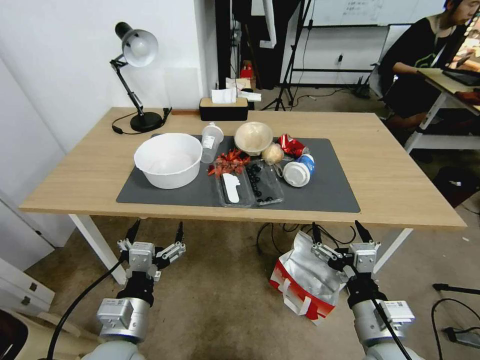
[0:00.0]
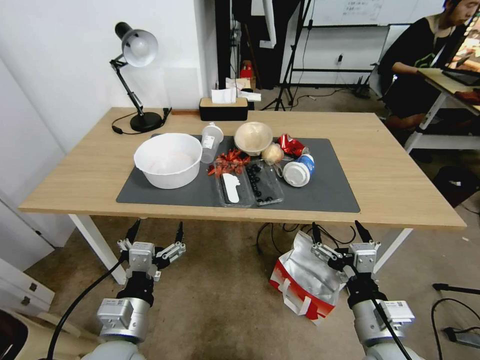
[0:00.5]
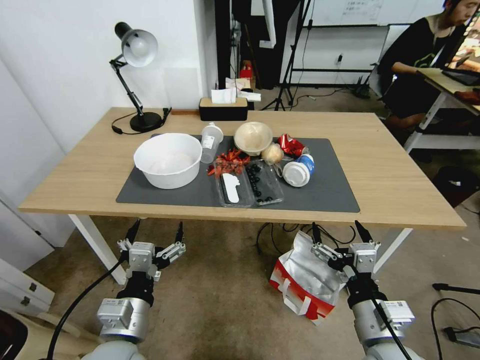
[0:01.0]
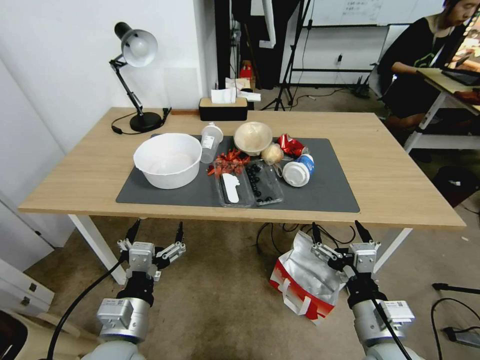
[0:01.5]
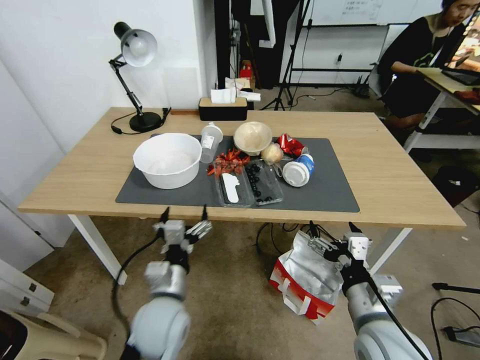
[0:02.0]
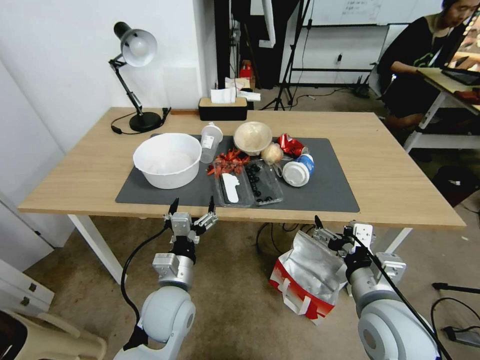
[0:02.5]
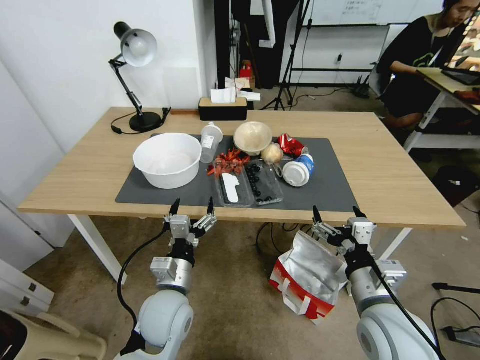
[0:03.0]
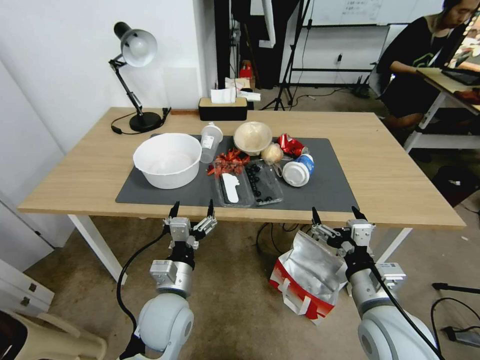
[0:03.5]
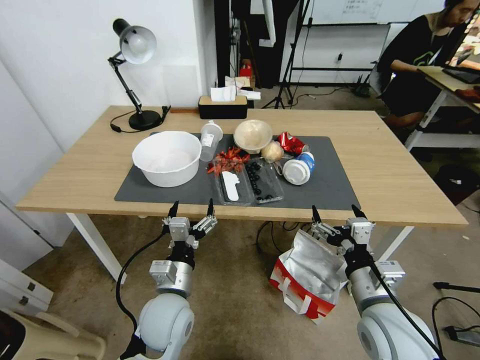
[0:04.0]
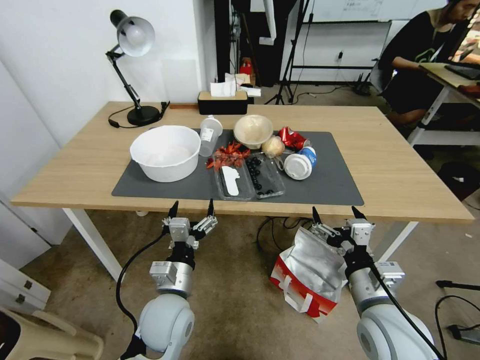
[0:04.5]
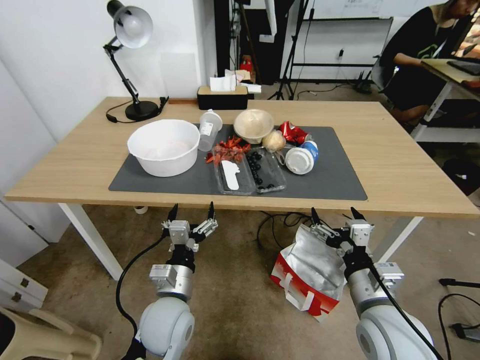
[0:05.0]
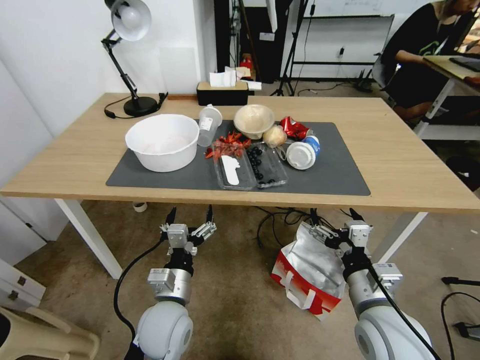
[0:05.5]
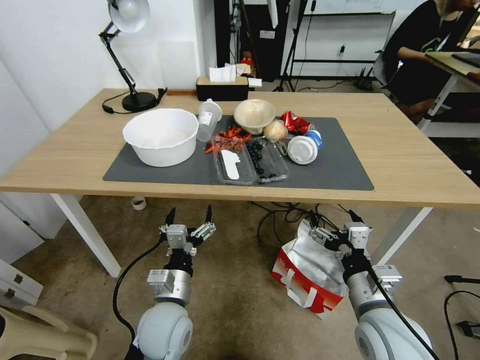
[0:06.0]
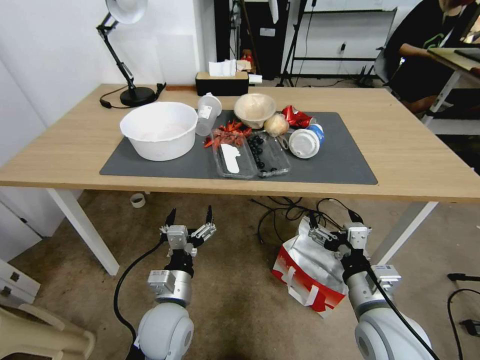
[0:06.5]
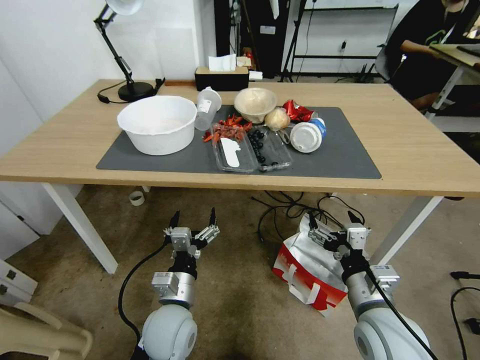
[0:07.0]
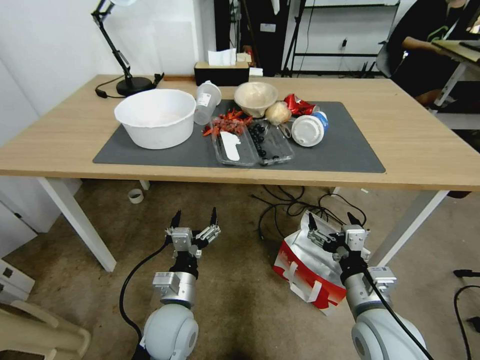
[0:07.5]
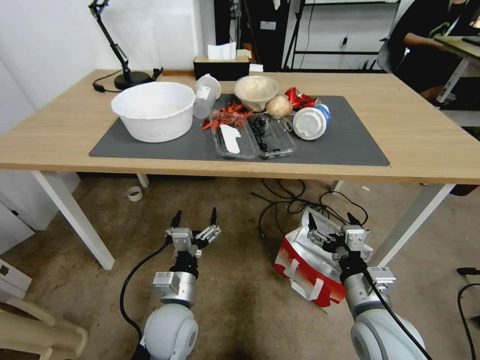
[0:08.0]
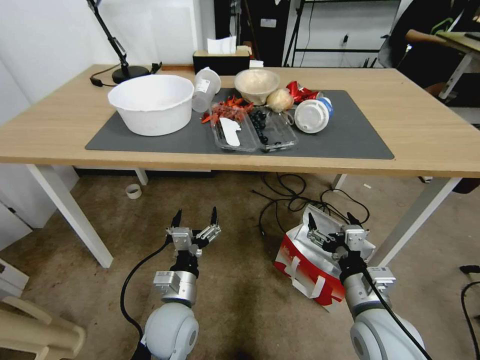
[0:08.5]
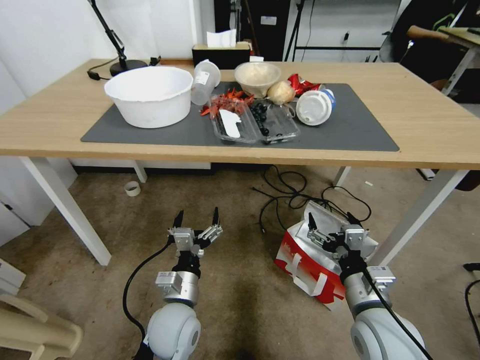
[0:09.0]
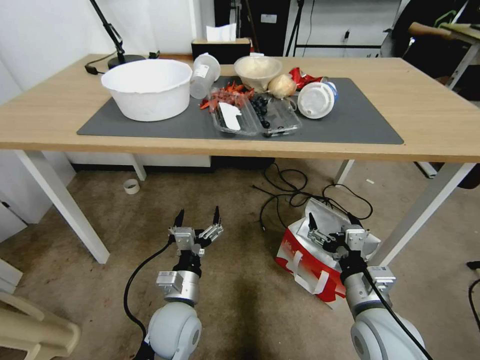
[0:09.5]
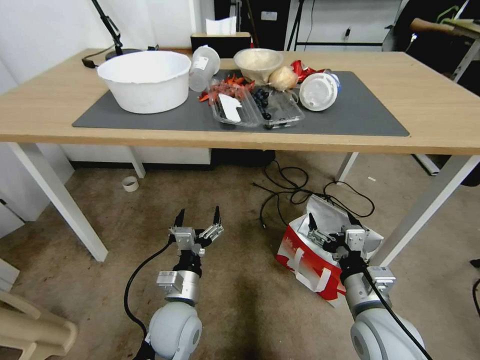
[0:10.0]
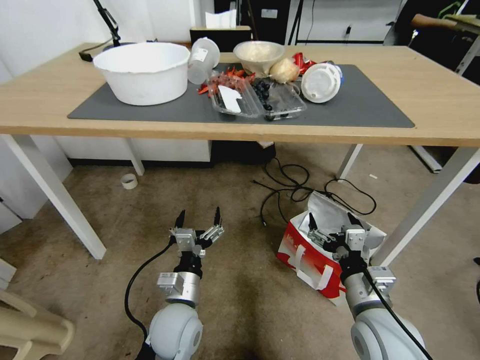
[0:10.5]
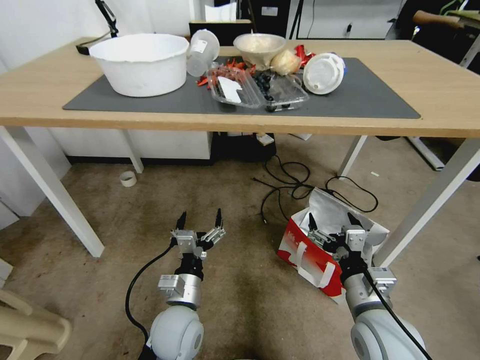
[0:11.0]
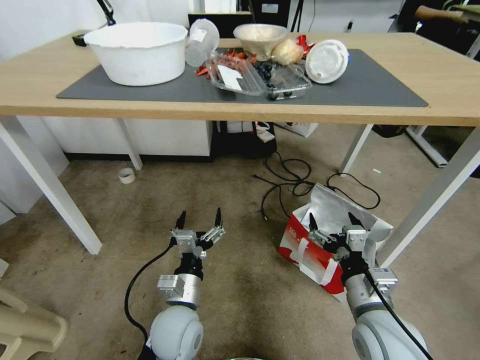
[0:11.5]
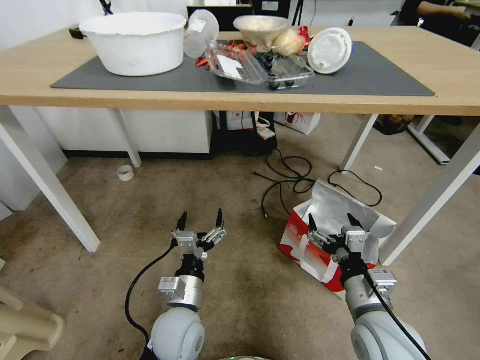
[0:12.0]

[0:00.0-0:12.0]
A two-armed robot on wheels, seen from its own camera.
Task of the whole recording: Pick up the food delivery bag from the floor and place it on the table.
2.0 to 4.0 s: The grippers make only small movements.

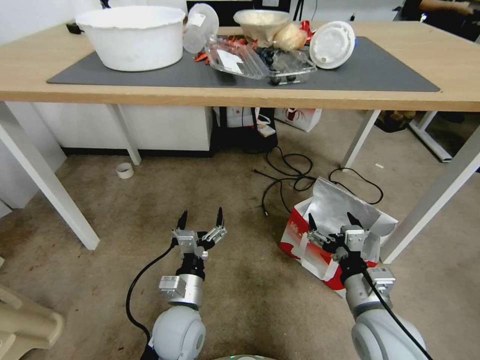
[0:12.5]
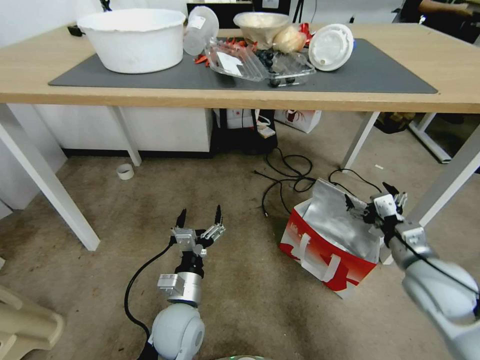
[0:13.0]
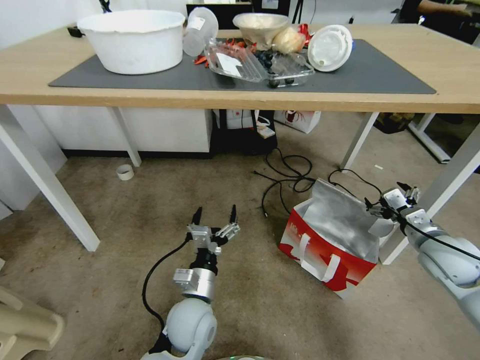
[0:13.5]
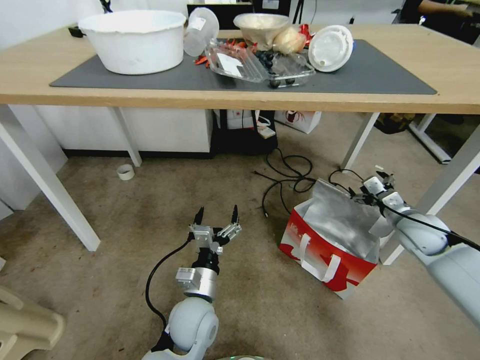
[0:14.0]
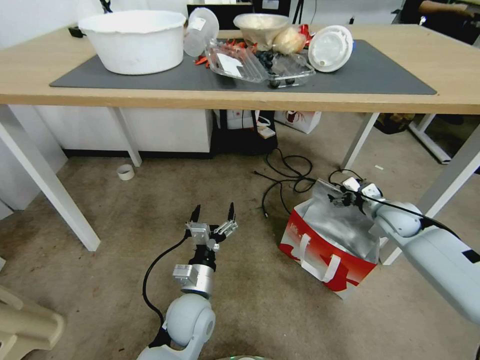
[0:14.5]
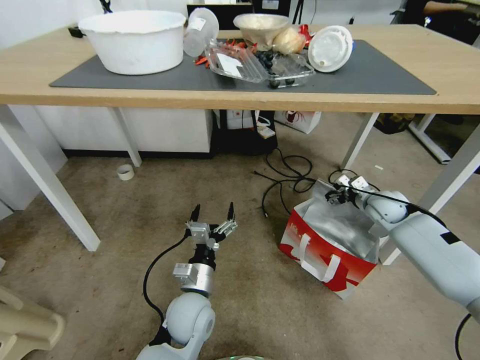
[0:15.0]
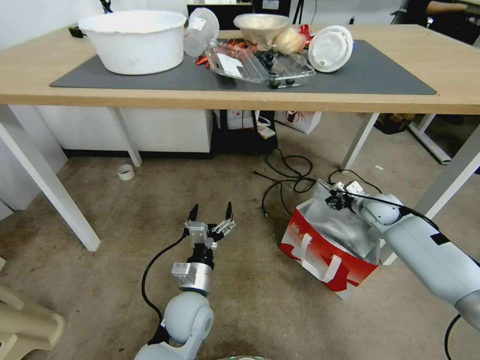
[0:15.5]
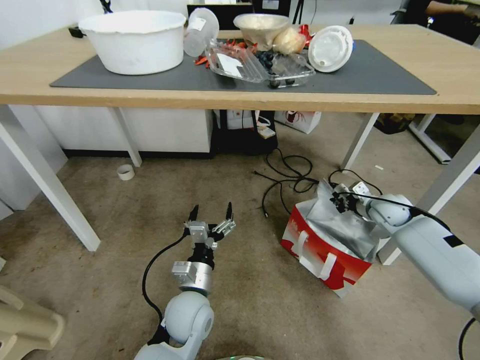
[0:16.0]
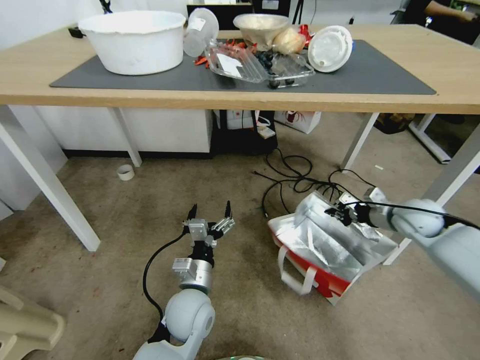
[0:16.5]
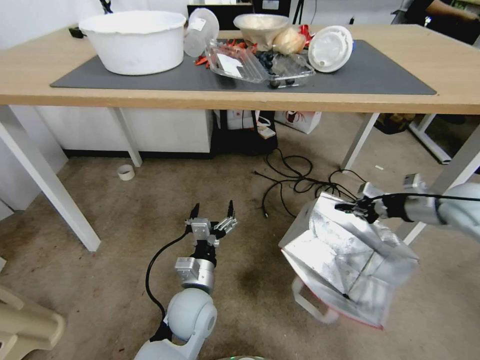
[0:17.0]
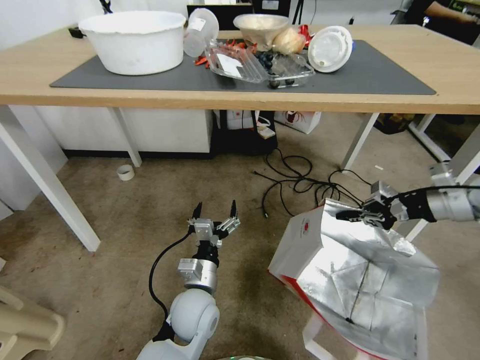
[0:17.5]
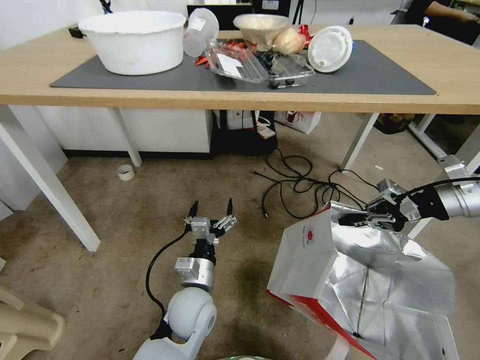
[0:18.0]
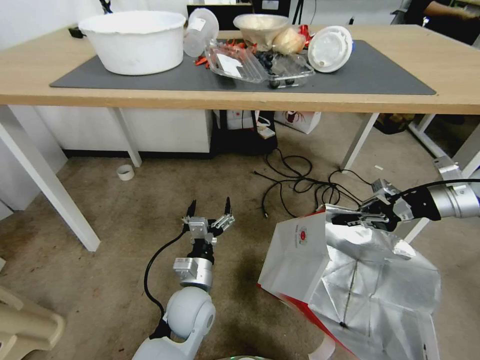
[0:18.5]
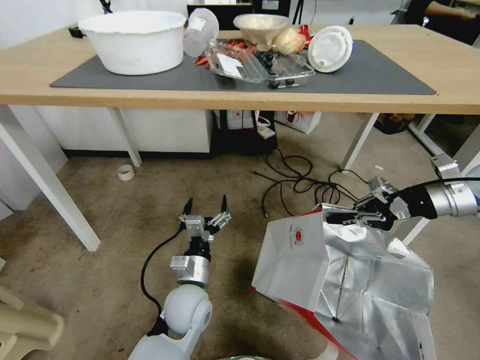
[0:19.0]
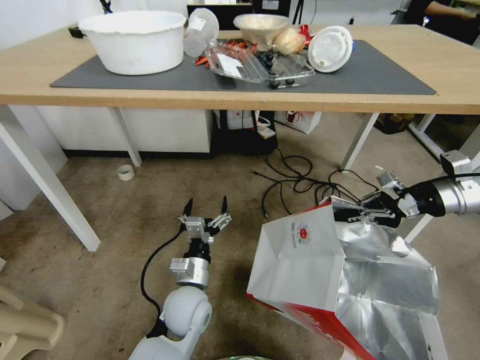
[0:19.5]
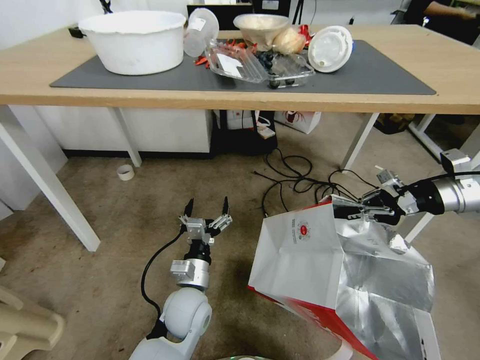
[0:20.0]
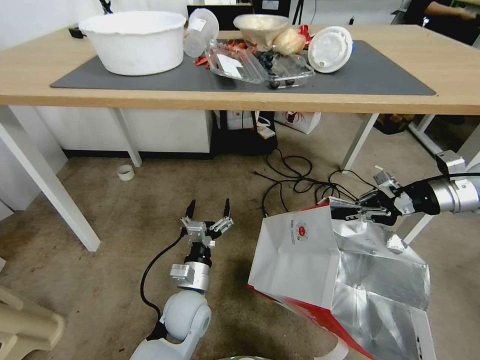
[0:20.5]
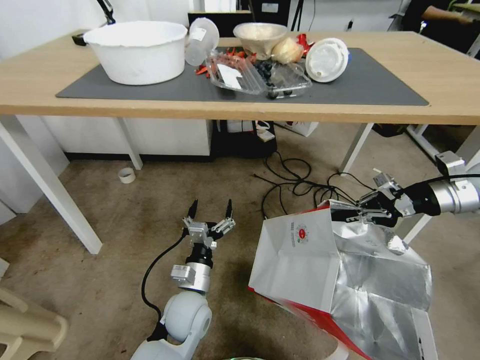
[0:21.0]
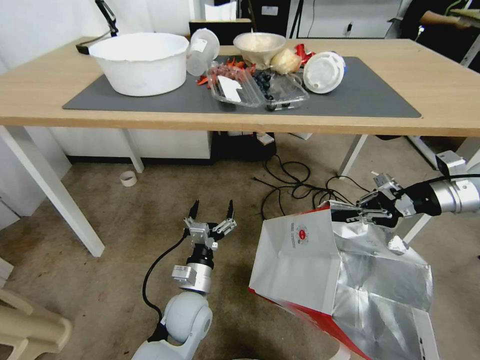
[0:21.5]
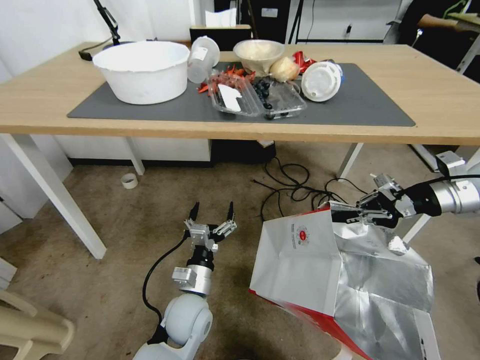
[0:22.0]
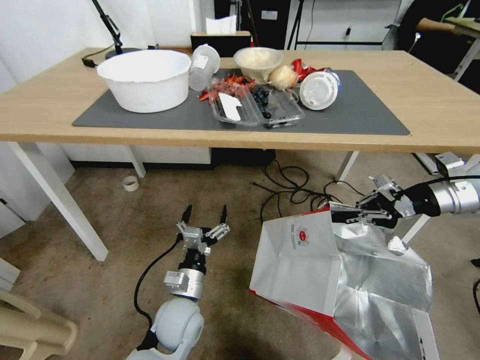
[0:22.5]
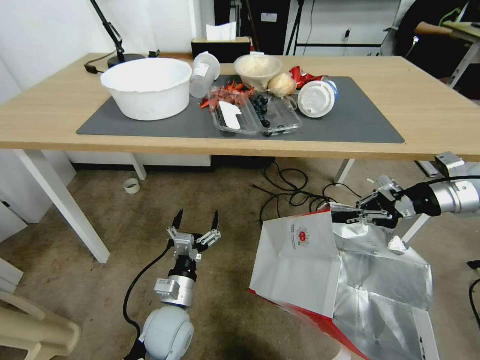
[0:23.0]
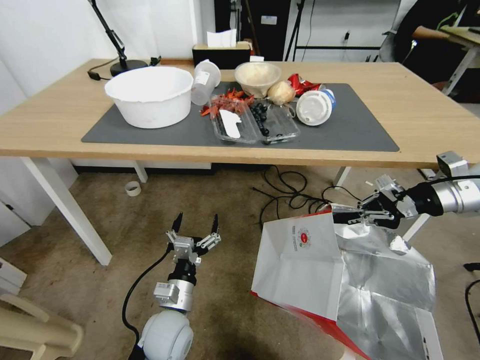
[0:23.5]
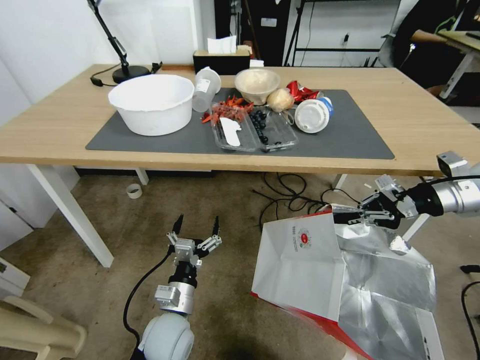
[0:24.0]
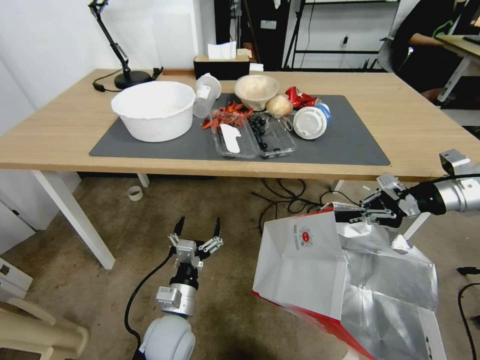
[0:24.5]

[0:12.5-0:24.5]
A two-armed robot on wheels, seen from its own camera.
Task of the whole recording: Pick up the food delivery bag from the floor and place it on the table.
12.5 to 14.5 s: The right gripper shifts some 30 cm forward and to the right.
14.5 to 16.5 s: The right gripper closes up.
16.5 to 18.5 s: The right gripper travels upward by some 15 cm.
18.5 to 20.5 s: The grippers move only a little.

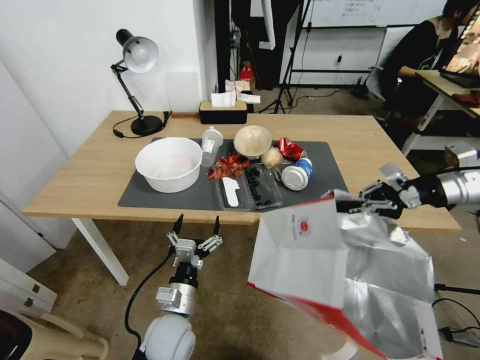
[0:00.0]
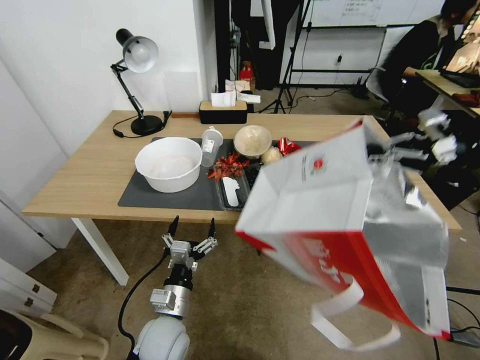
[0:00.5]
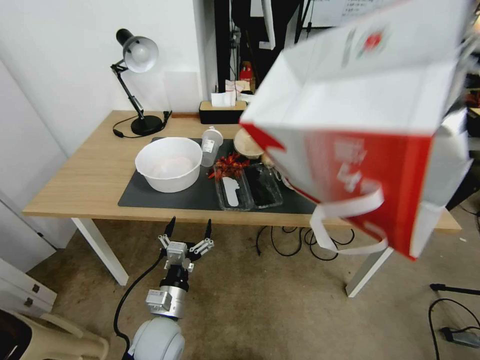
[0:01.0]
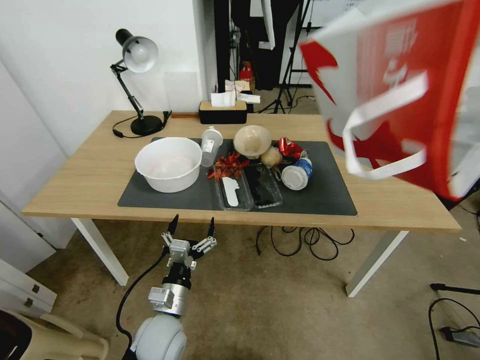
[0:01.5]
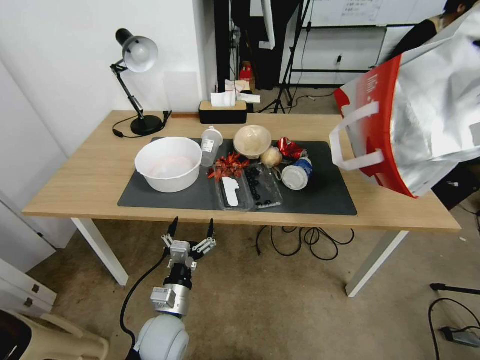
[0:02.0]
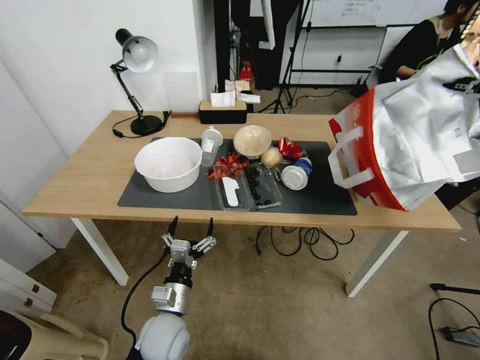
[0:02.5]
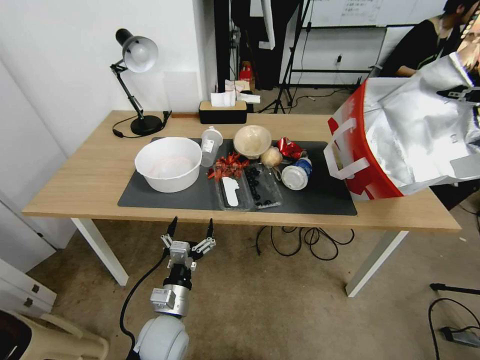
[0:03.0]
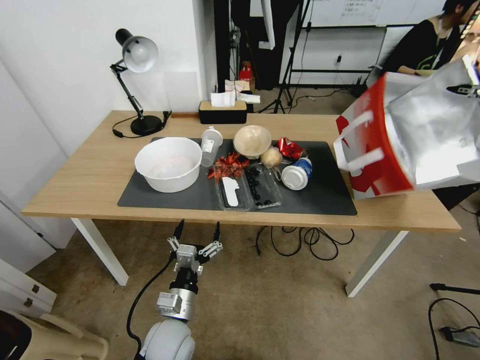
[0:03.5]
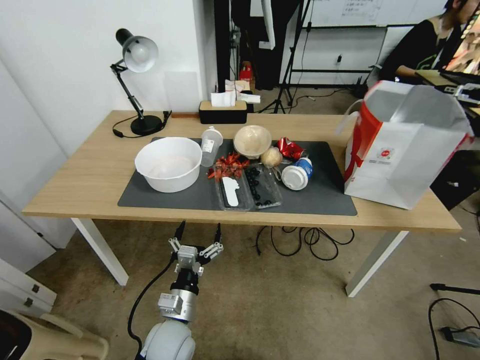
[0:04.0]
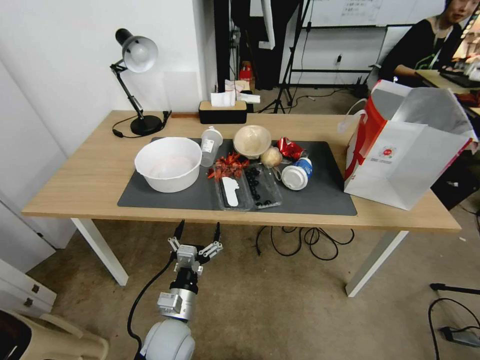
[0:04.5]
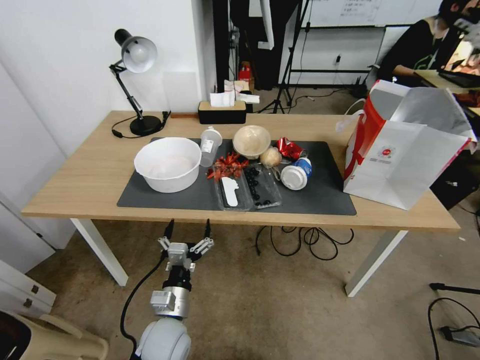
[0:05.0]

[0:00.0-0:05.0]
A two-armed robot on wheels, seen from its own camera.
Task of the whole recording: Pick up the food delivery bag from the floor and place it on the table.
0.0 to 2.5 s: The right gripper travels upward and to the right by approximately 15 cm.
2.5 to 5.0 s: The right gripper is displaced to the left by some 5 cm, and opens its fingers.
